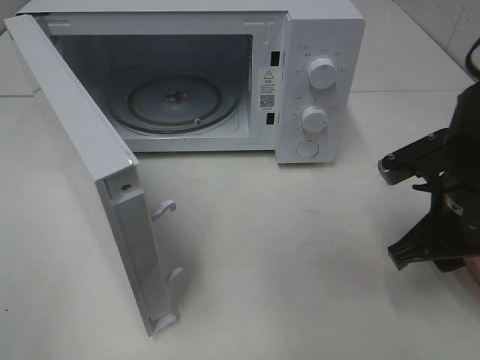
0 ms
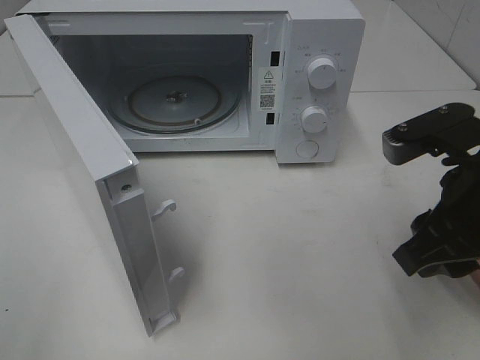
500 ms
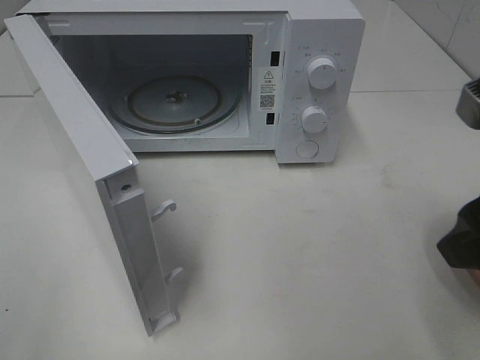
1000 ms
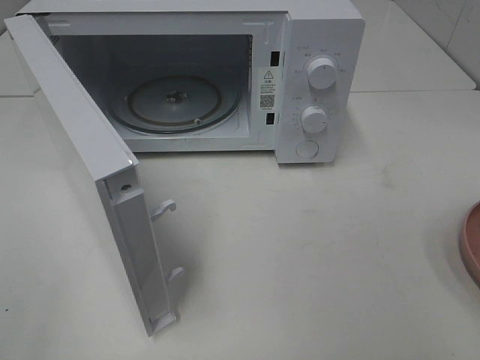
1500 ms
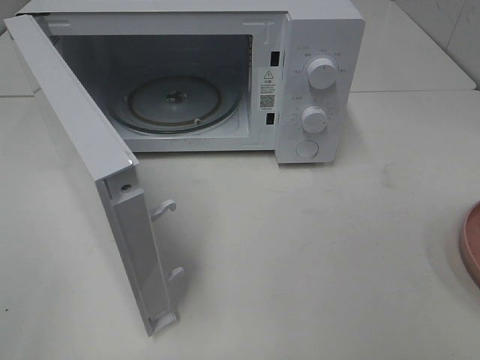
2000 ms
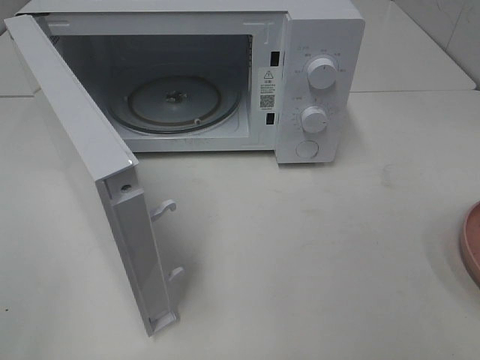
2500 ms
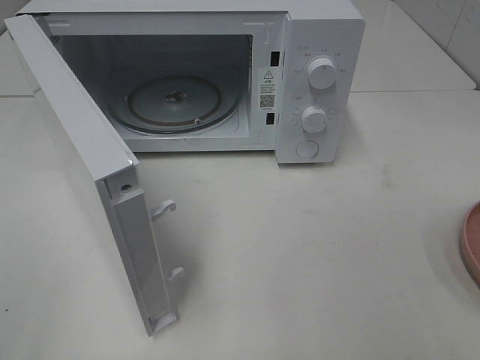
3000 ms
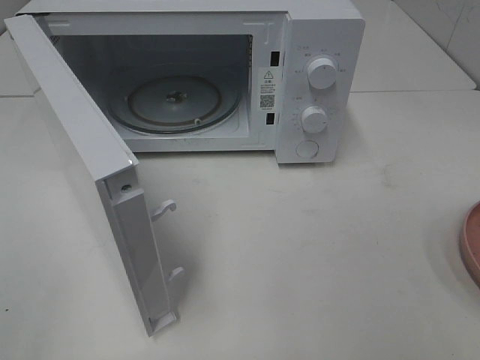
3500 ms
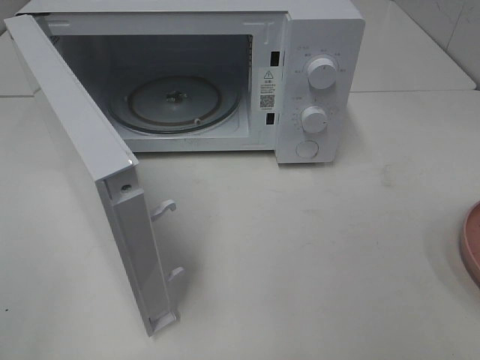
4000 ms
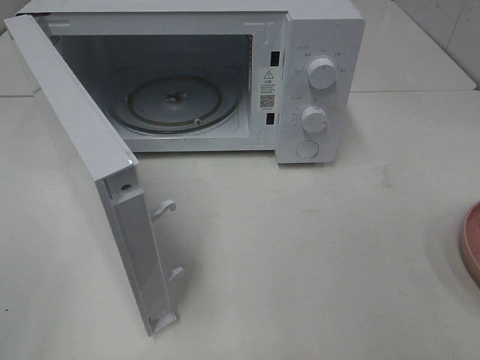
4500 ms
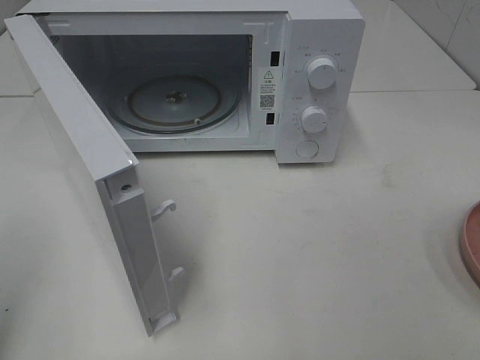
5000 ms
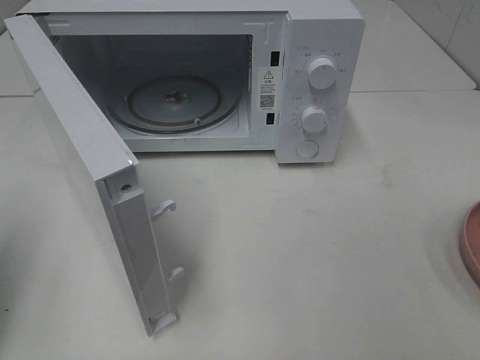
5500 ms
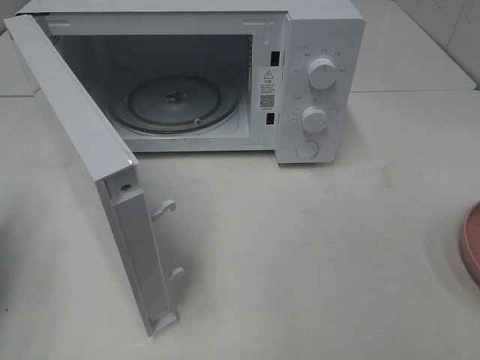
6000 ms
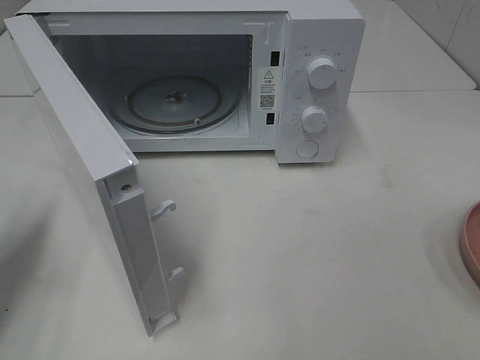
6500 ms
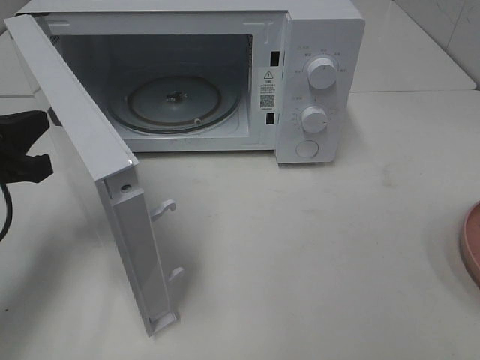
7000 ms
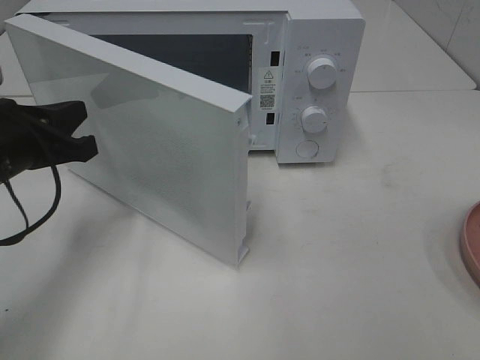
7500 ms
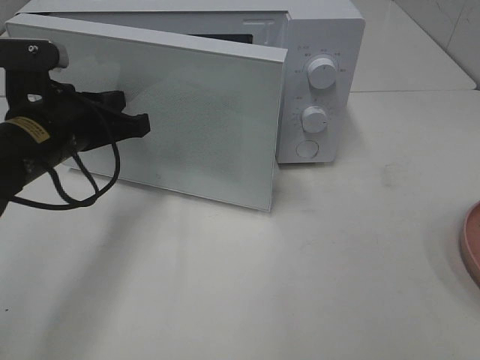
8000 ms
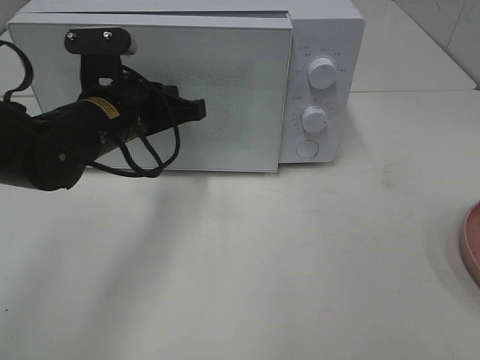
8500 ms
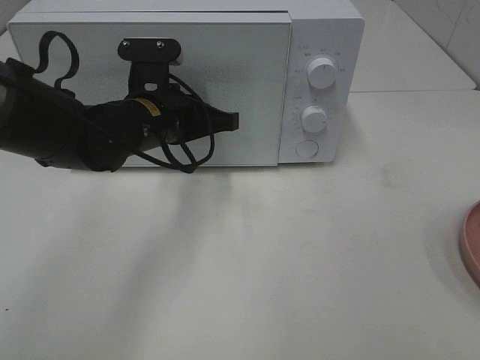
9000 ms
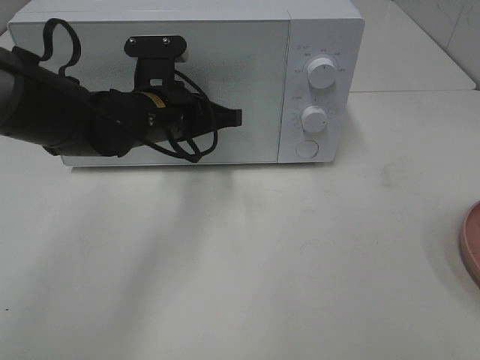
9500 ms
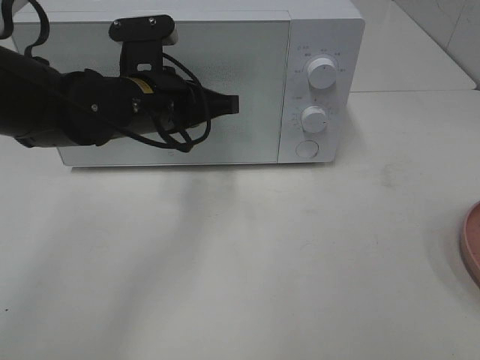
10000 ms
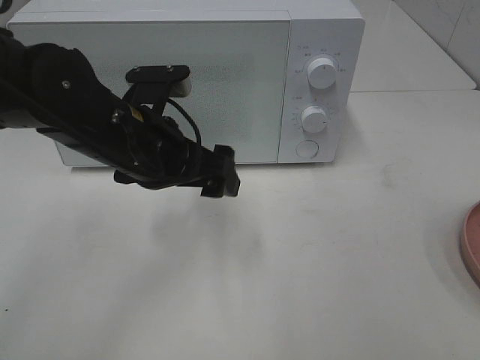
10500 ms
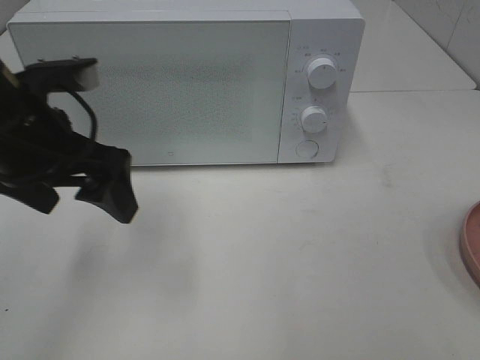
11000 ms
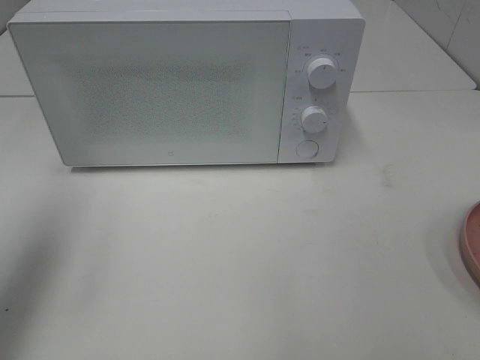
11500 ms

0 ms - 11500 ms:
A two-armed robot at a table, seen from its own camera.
Task of the whole recording: Heat the burger.
Step, 0 ms - 10000 ms: Left hand: close the microwave door.
0 ms - 2000 ms: The right gripper shifts approximately 25 cm backward and upward.
4000 ms - 6000 ms: The left gripper is displaced forward by roughly 20 cm, and closes up.
6000 ms - 7500 ms: The left gripper moves to the right and forward, approximately 15 cm.
7500 ms - 9500 ms: The left gripper heads to the right and forward, covering some 15 cm.
9500 ms - 11500 ms: The left gripper goes approximately 30 cm to the left, upward and backward, and opens.

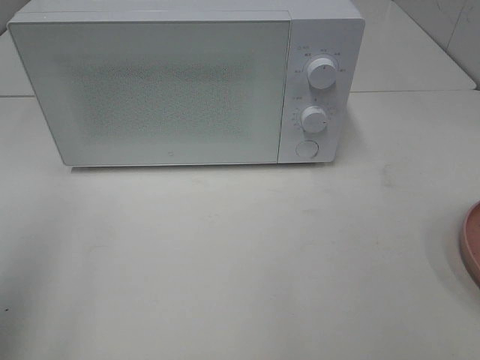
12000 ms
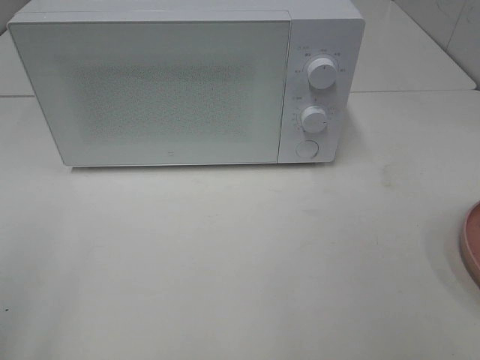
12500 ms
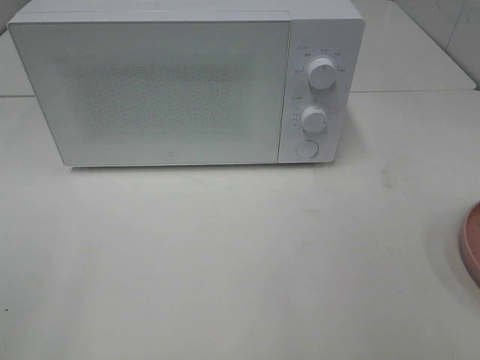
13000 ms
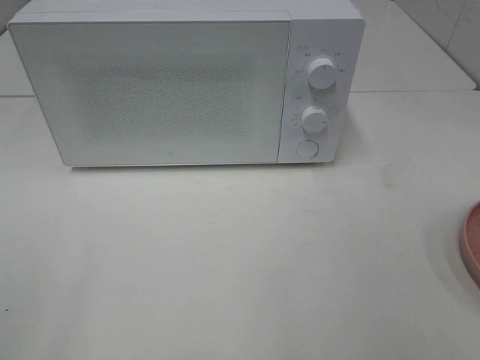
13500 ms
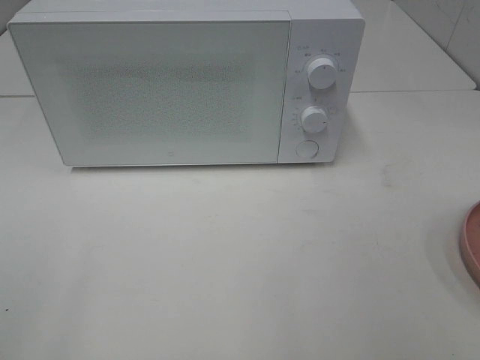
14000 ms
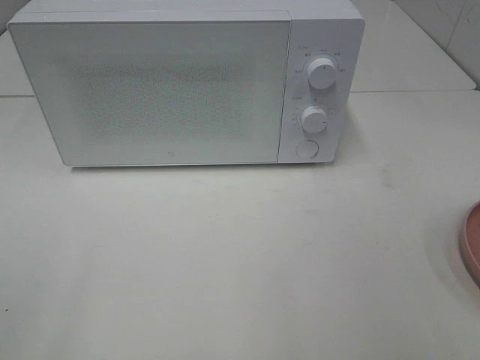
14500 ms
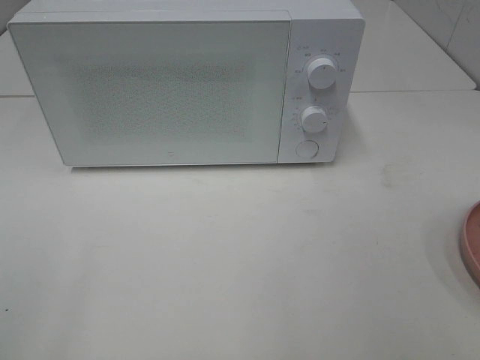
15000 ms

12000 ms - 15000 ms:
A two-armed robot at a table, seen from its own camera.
Task of the whole recording: Heat the burger.
12000 ms - 13500 ms: The left gripper heads backward and downward, covering about 15 cm.
13500 ms - 15000 ms: Neither gripper changes place.

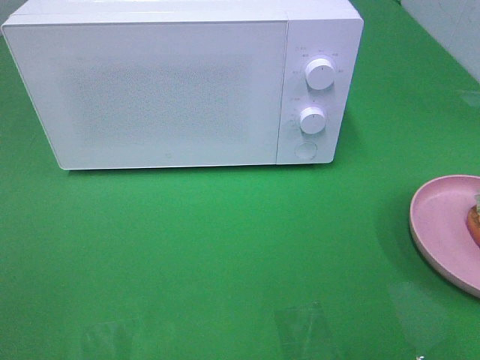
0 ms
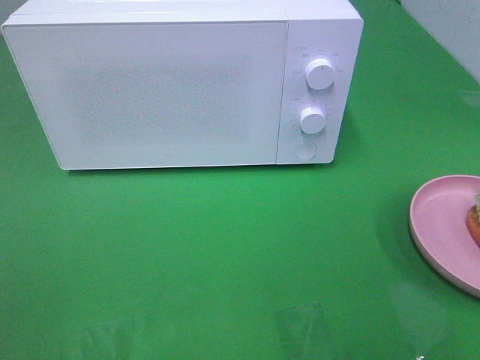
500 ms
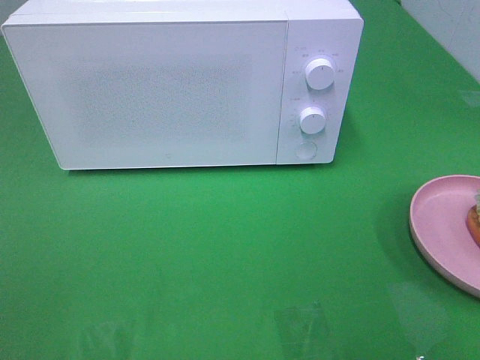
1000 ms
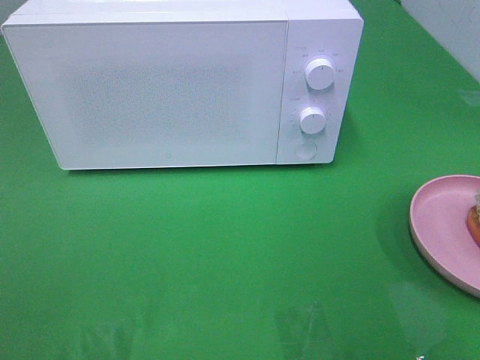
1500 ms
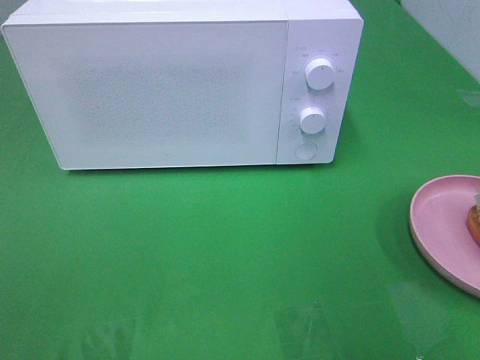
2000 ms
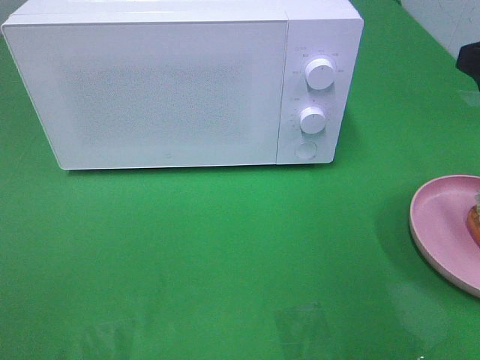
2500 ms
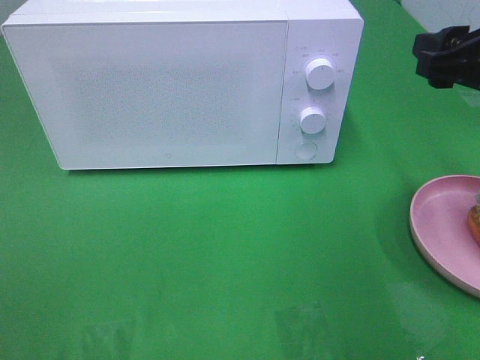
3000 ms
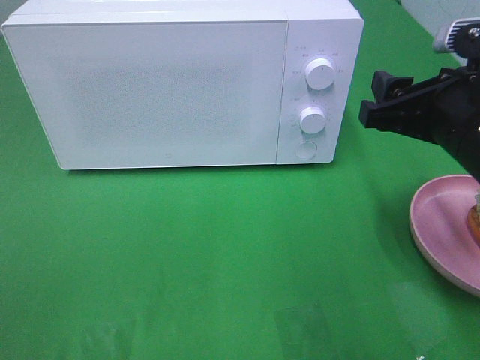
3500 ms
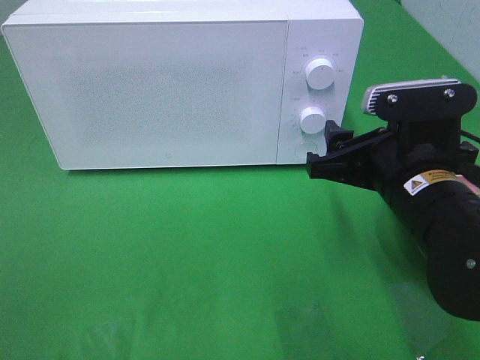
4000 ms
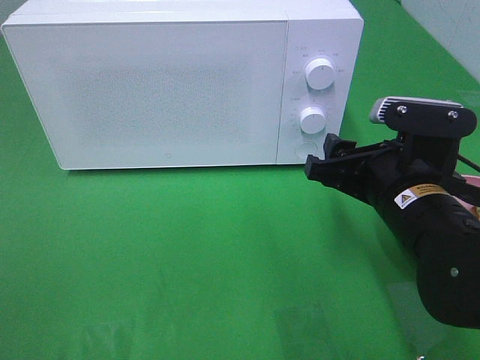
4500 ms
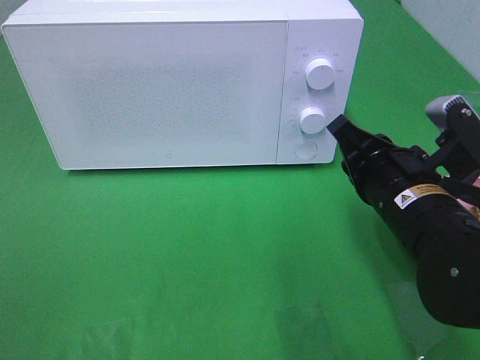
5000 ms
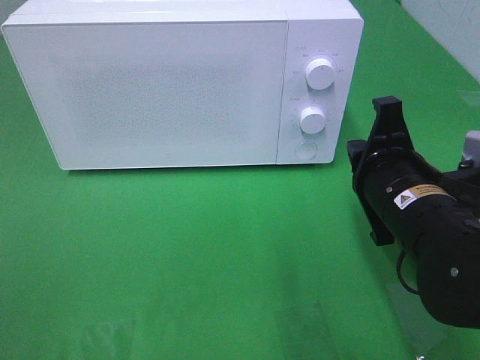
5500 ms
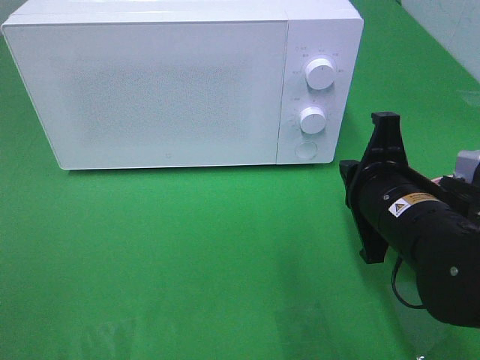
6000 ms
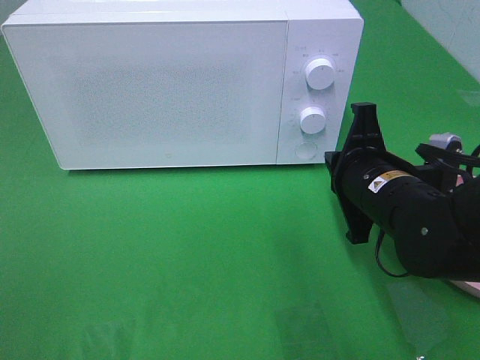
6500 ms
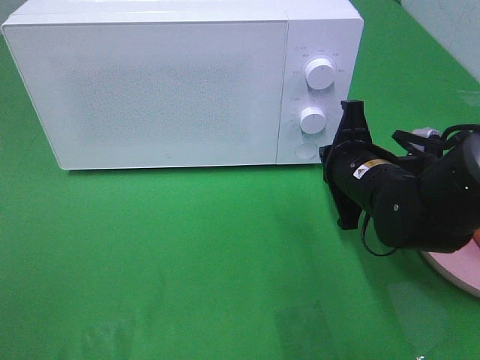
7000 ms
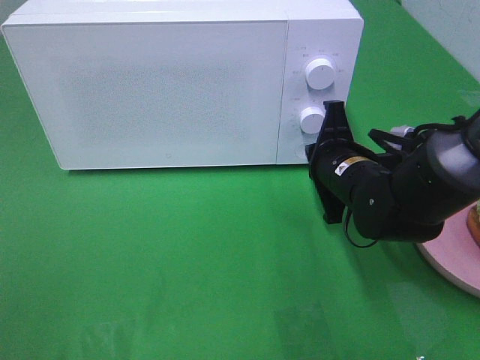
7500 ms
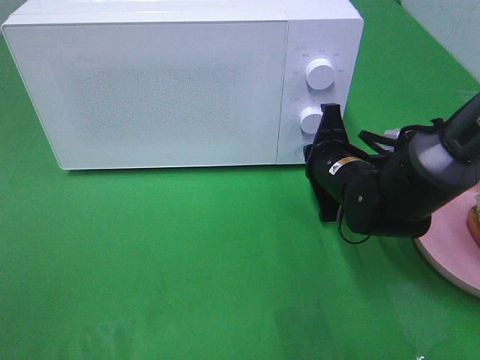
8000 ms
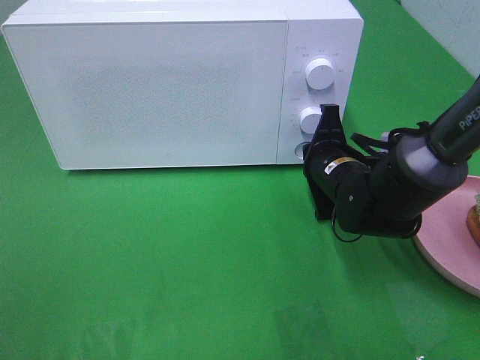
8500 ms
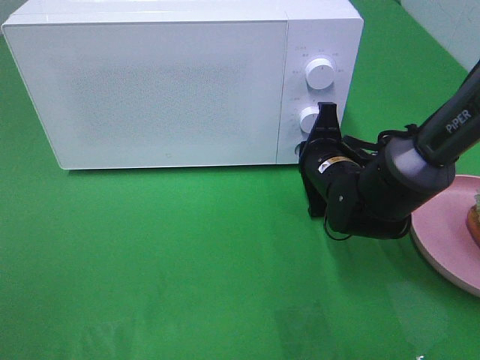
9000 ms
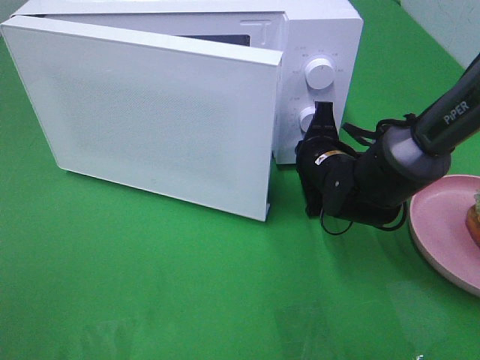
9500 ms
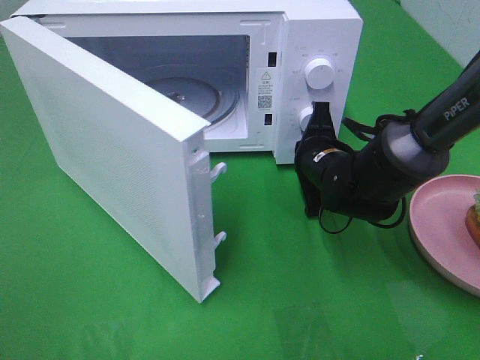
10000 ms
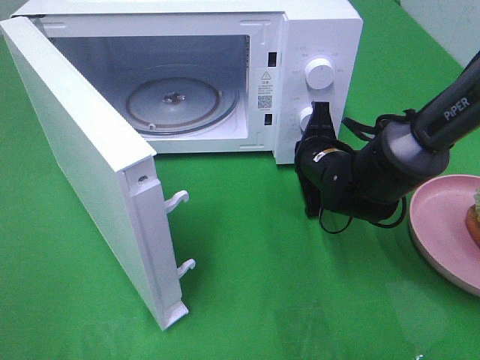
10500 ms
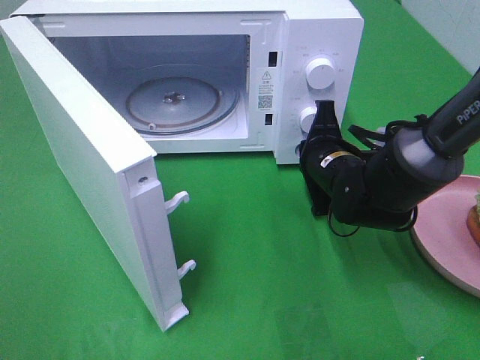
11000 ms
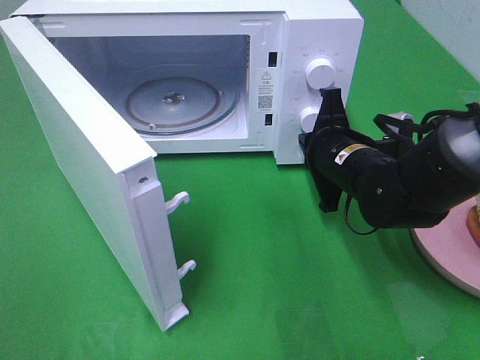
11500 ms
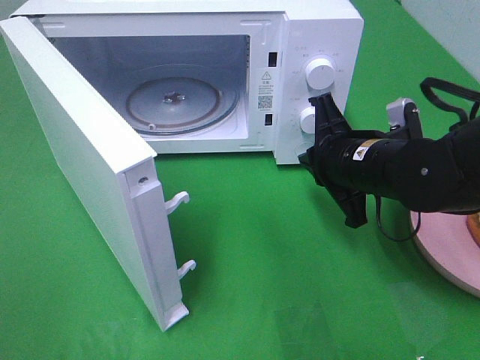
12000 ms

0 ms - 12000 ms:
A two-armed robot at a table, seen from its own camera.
Task of the whole recording: Heat the burger.
Step, 0 ms - 11000 ms: Right hand: press the switch.
2000 ms - 4000 ms: The right gripper moves downward, to the left and forward, roughly 20 cm.
4000 ms - 6000 ms: The right gripper closes its fingers.
6000 ms - 8000 ms: The right gripper shifts approximately 10 cm forward and downward.
10000 ms - 12000 ms: The right gripper moves backward and upward, some 10 cm.
